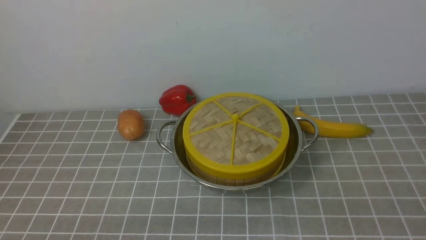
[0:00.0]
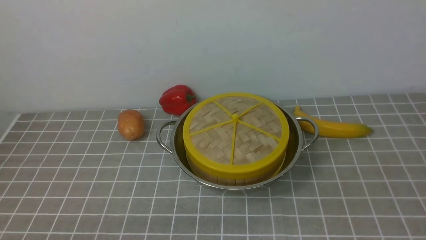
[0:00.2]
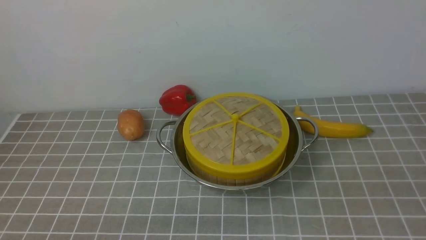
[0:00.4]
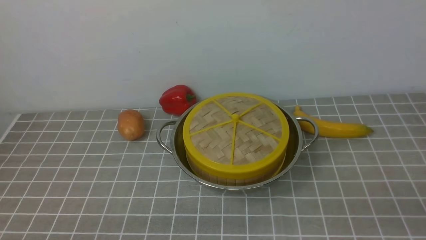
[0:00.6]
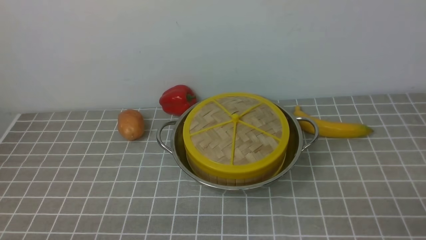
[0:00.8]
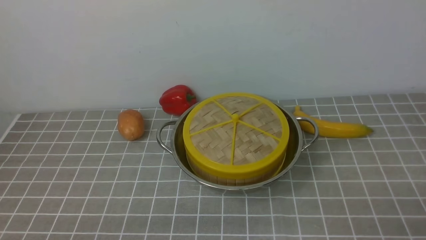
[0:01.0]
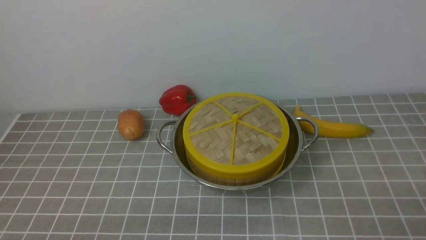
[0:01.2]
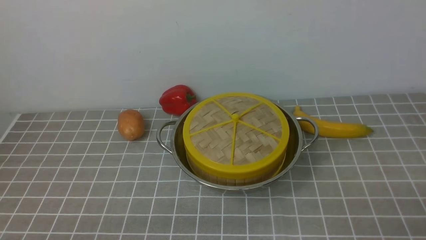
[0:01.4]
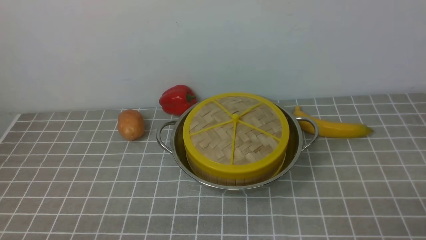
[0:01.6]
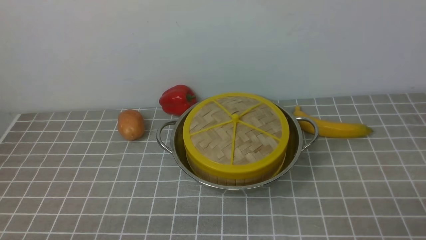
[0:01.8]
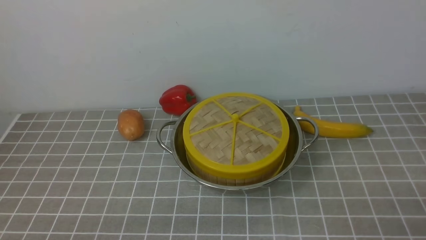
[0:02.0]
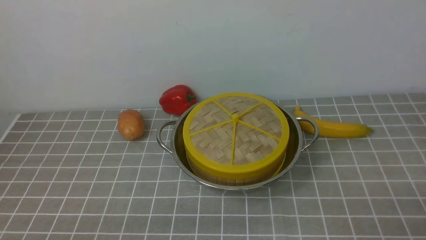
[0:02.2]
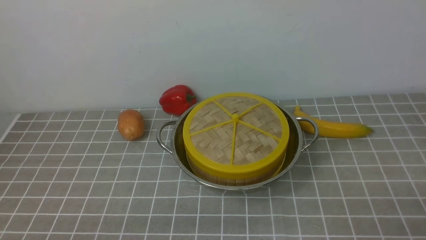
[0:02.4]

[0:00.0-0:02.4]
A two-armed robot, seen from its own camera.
Task of the whole recording: place the steamer in the pot on the grey tablecloth, and put the lid on the steamer.
0:01.2 to 0:02.4: Neither gripper changes place.
